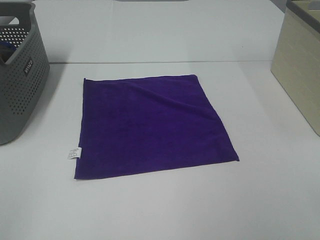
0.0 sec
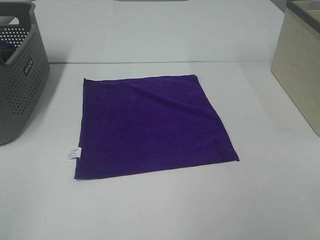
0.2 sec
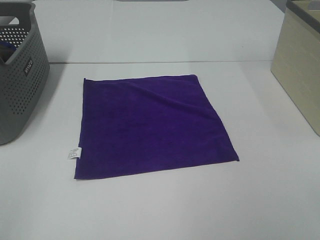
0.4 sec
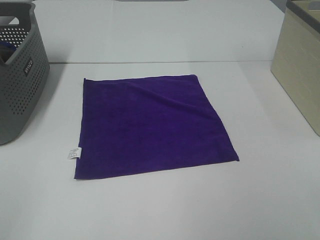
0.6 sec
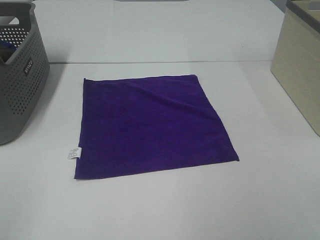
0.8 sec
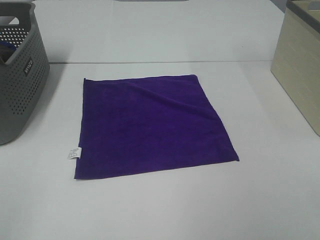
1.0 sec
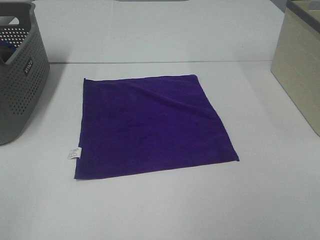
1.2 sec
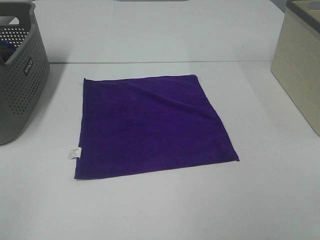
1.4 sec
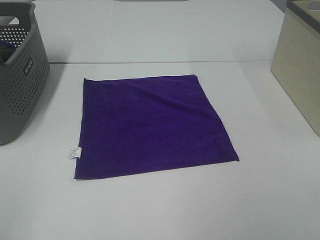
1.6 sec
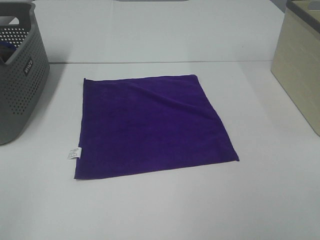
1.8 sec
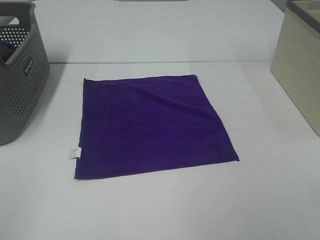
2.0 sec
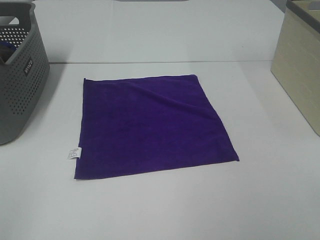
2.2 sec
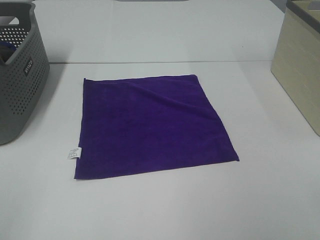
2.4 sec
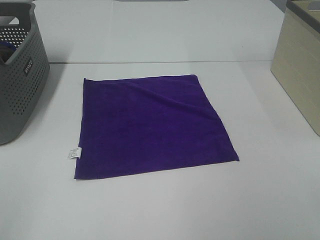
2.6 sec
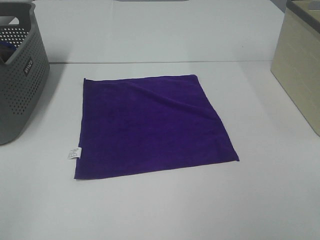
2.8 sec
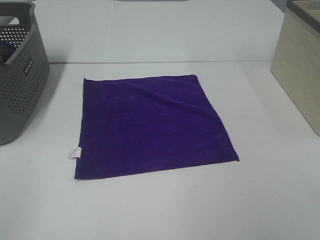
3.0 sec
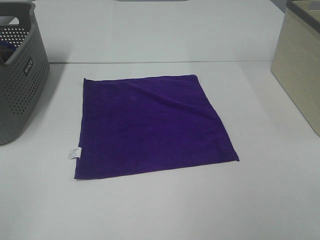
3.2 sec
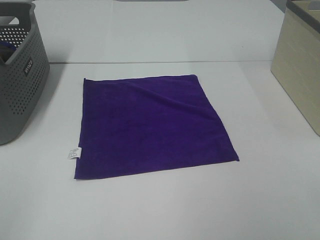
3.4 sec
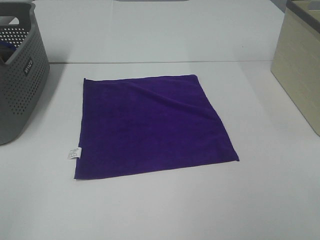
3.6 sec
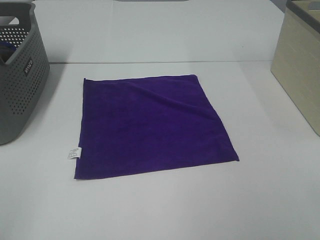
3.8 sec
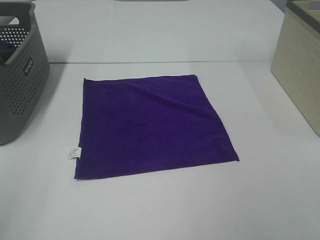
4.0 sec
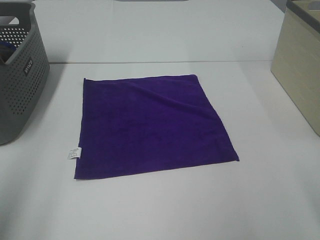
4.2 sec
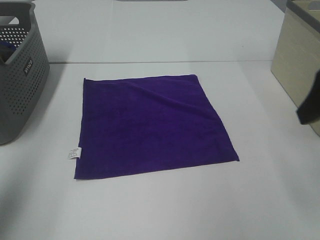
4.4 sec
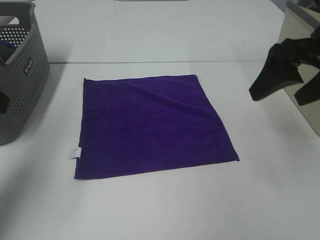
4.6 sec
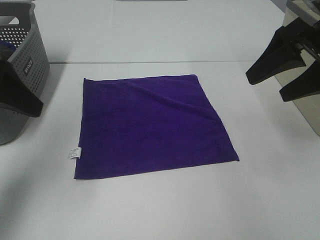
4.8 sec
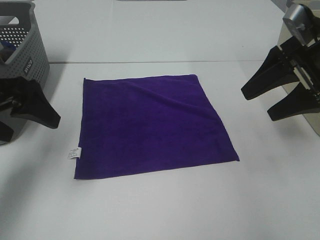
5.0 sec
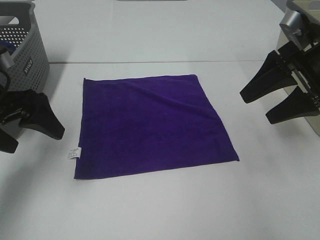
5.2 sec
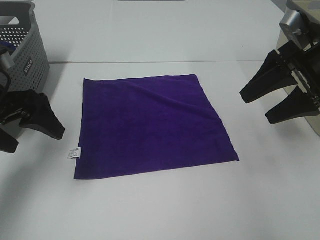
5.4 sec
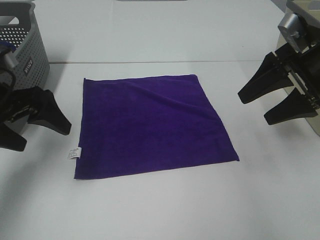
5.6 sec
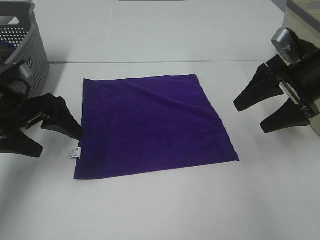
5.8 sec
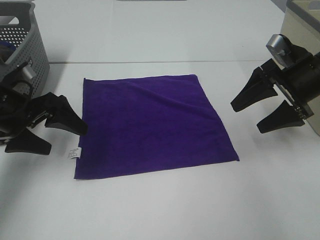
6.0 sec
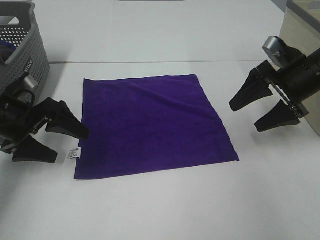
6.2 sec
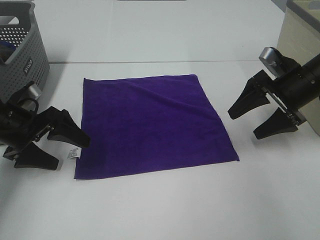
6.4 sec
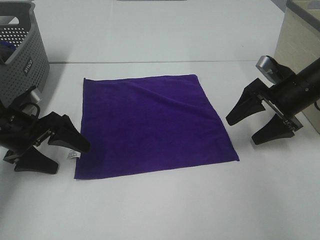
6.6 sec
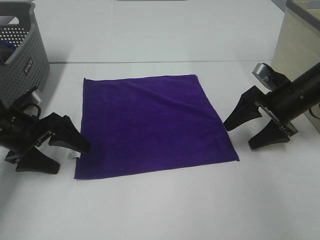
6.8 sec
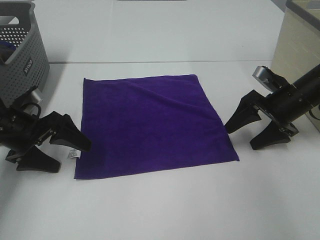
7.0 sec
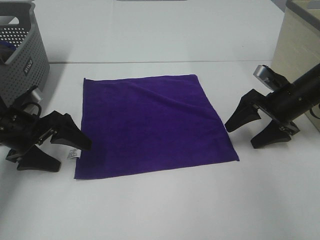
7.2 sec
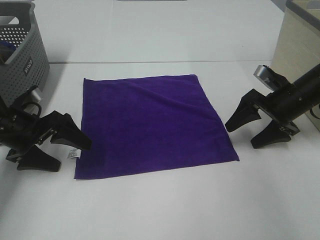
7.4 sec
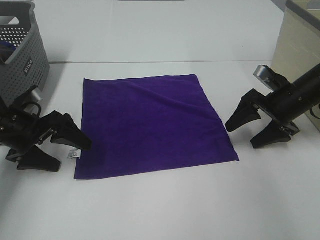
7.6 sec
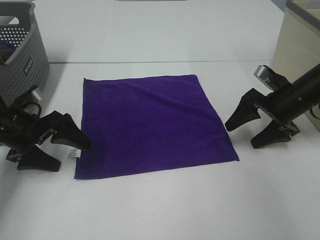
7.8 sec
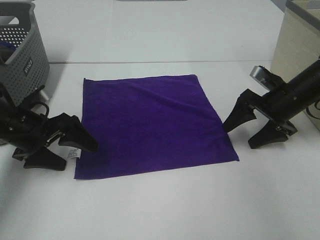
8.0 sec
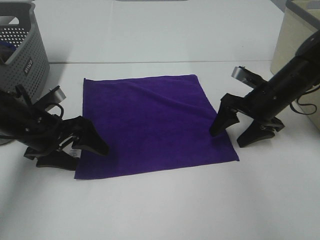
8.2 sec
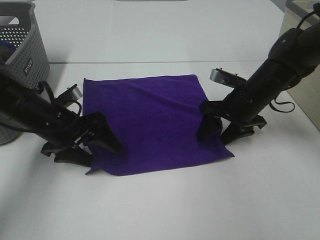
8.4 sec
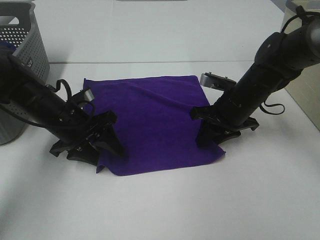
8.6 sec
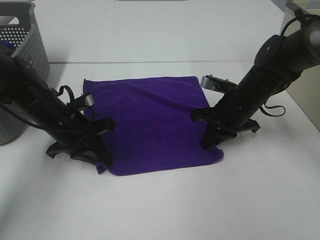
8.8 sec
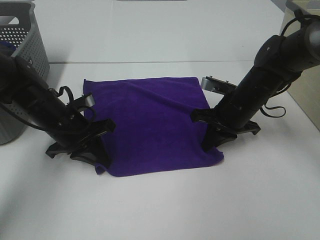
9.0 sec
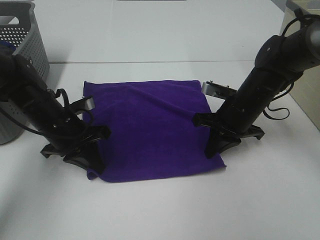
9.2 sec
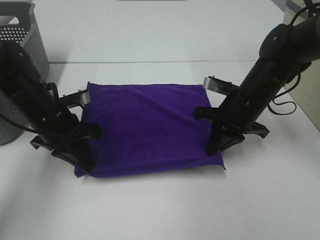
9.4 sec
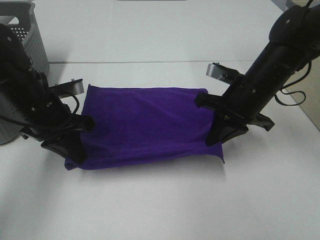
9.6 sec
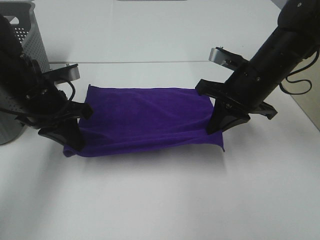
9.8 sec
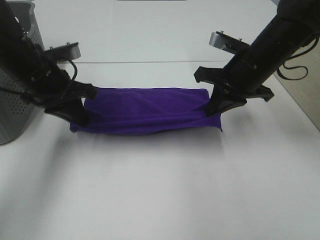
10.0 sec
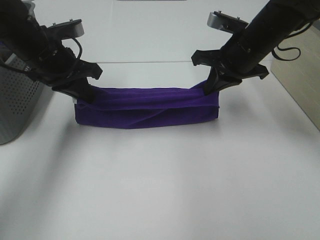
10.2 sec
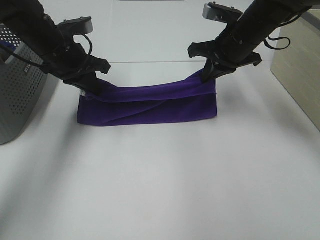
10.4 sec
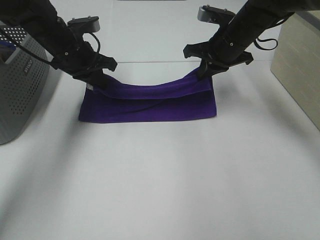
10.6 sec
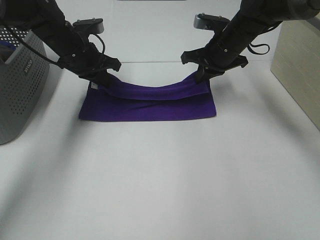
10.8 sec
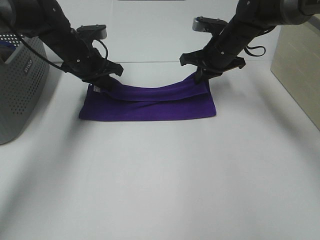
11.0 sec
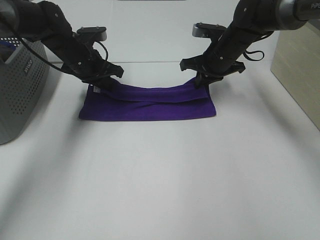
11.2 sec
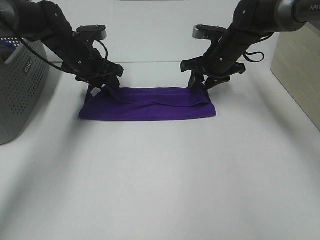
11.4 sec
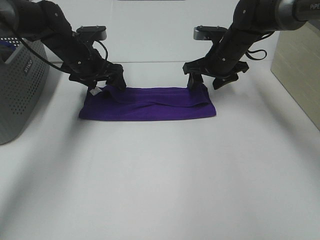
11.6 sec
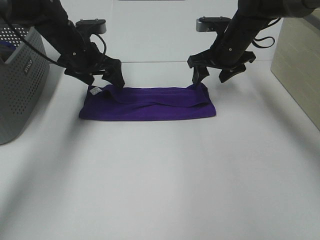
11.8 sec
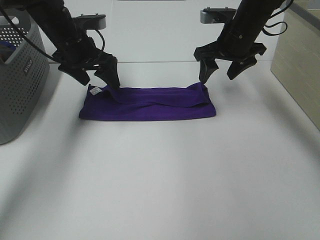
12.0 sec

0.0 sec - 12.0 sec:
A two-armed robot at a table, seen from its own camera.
Task of the whole recording: Fold towels.
Step, 0.0 sec - 8.6 sec: Left hand: grab the bottom left corner of purple towel.
Step, 0.0 sec - 8.6 sec: Right hand: grab the bottom right corner of purple towel.
Step, 8.8 sec - 11.0 sec: Left hand: fold the purple towel up.
Step, 8.8 sec - 11.0 sec: Right hand: fold the purple towel up.
0.0 sec - 3.0 sec: The two grippers keep their place.
3.0 sec - 4.4 sec: The two grippers go some 20 cm forward.
4.4 sec - 6.0 sec: The left gripper is displaced downward and forward by approximately 20 cm. The right gripper shifts some 20 cm forward and downward.
6.0 sec - 7.6 sec: Both grippers travel together downward, about 5 cm.
7.6 sec - 9.0 sec: The right gripper is displaced to the left by about 10 cm, and closes its fingers, while the left gripper goes approximately 10 cm to the right, and closes.
9.0 sec - 10.4 sec: Both grippers move upward and forward, about 15 cm.
10.4 sec - 12.0 sec: The right gripper opens. The left gripper opens.

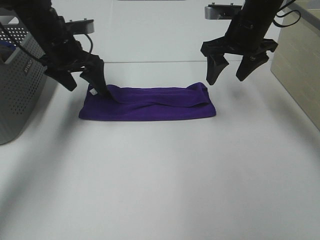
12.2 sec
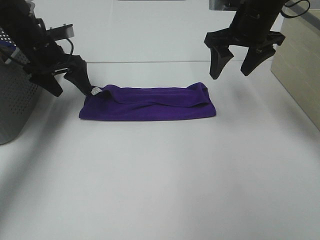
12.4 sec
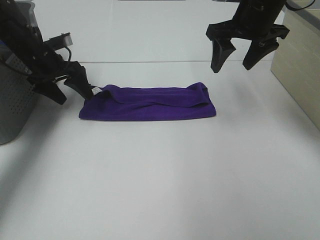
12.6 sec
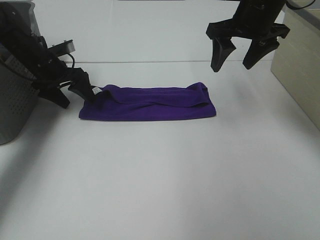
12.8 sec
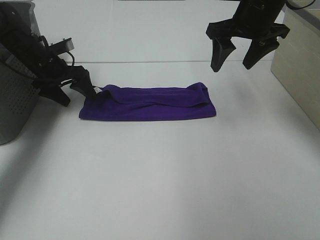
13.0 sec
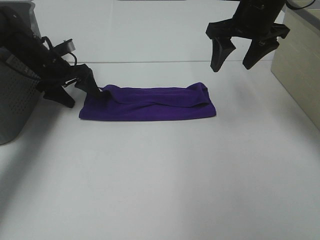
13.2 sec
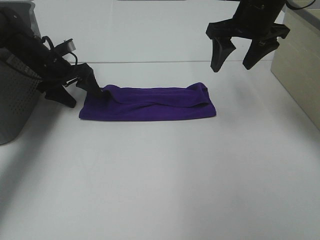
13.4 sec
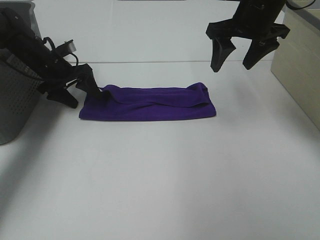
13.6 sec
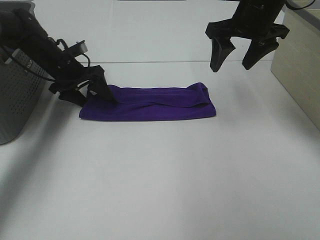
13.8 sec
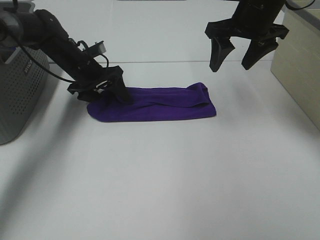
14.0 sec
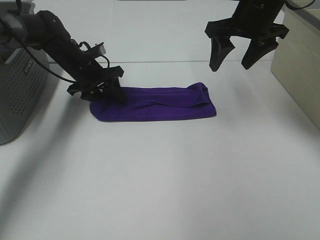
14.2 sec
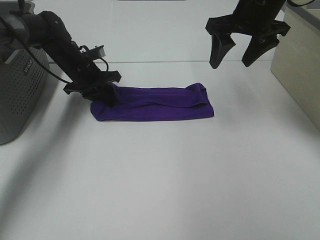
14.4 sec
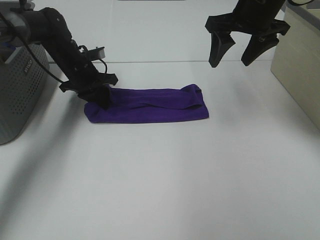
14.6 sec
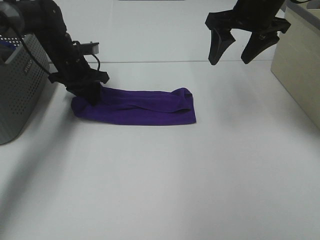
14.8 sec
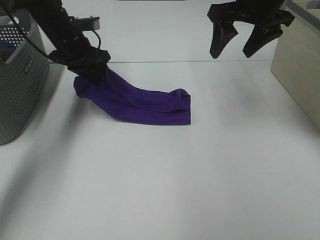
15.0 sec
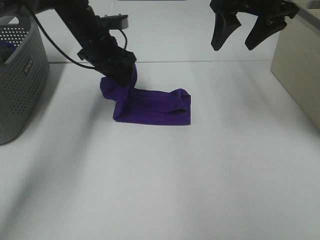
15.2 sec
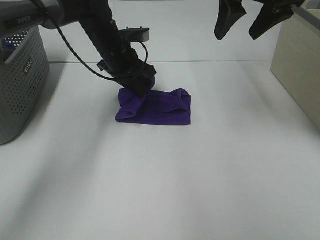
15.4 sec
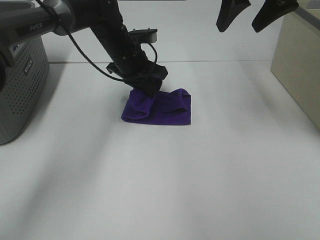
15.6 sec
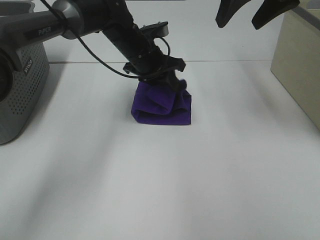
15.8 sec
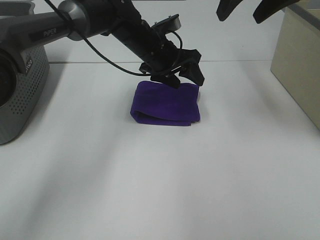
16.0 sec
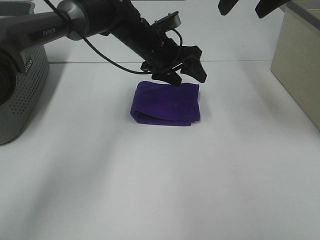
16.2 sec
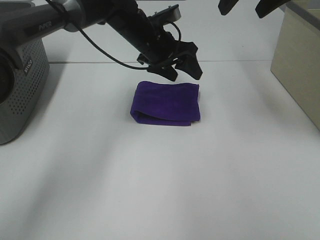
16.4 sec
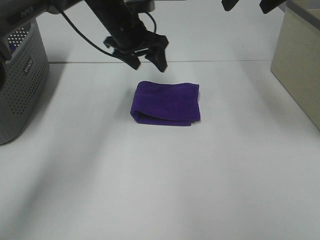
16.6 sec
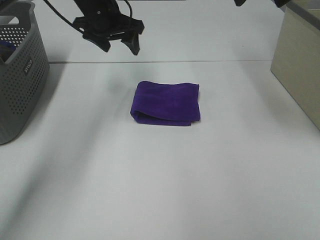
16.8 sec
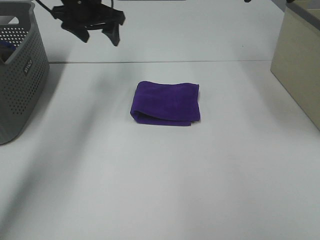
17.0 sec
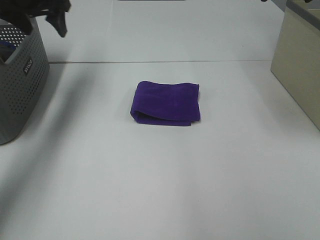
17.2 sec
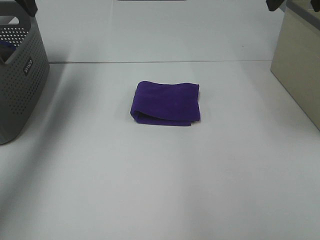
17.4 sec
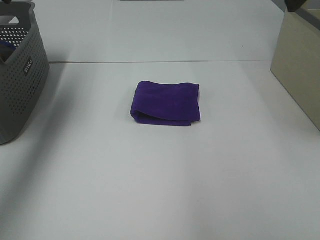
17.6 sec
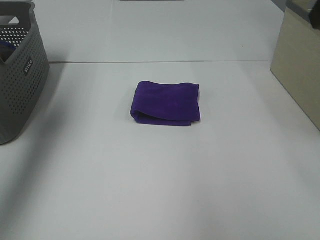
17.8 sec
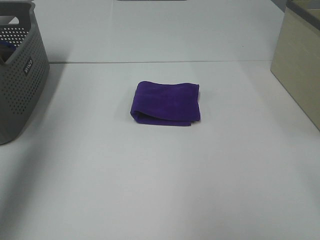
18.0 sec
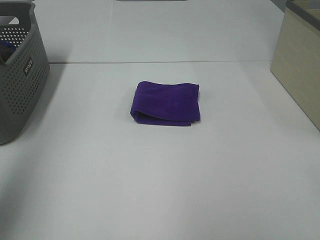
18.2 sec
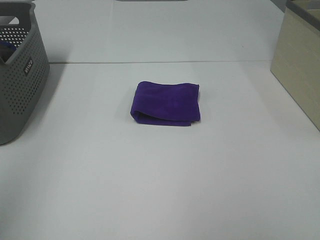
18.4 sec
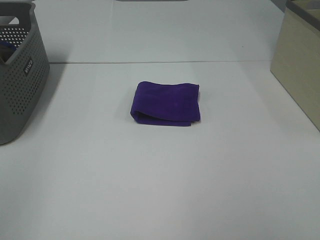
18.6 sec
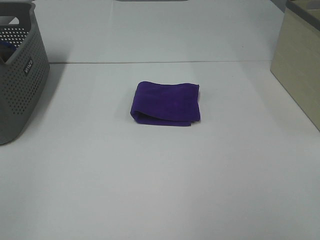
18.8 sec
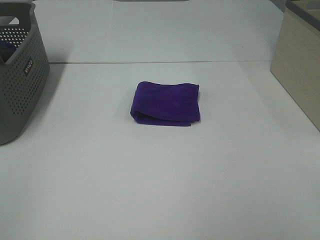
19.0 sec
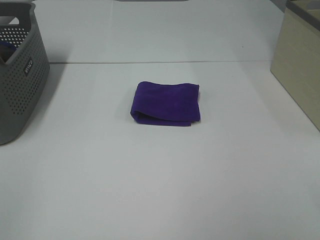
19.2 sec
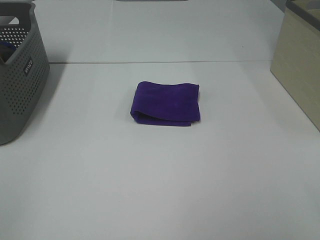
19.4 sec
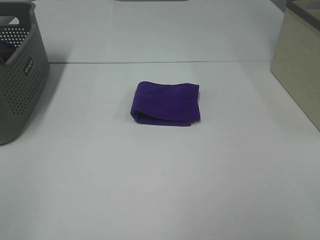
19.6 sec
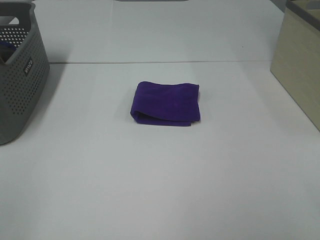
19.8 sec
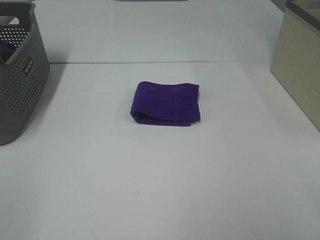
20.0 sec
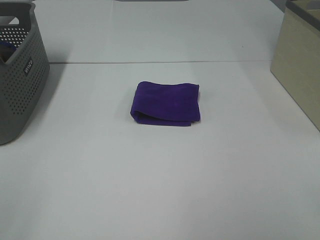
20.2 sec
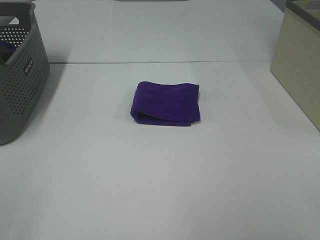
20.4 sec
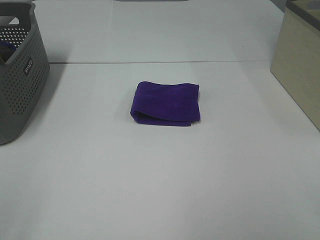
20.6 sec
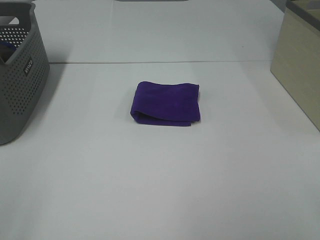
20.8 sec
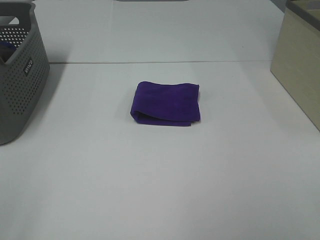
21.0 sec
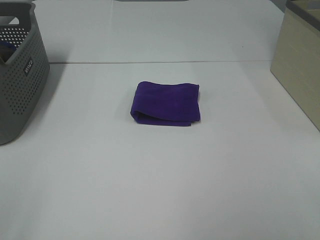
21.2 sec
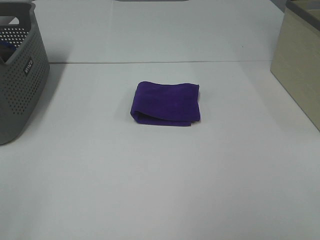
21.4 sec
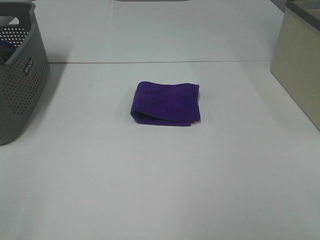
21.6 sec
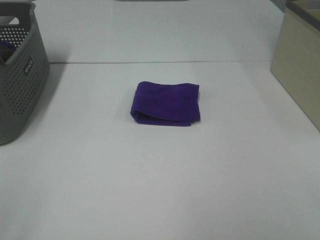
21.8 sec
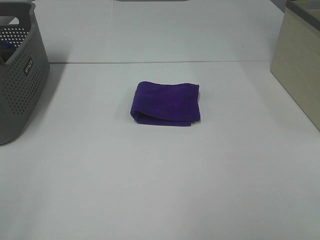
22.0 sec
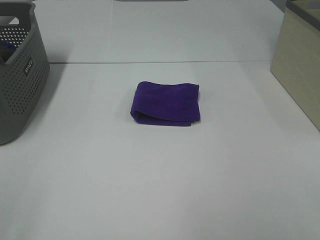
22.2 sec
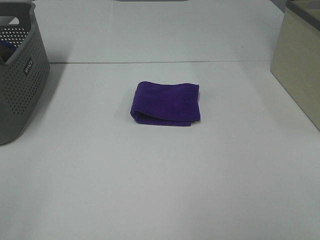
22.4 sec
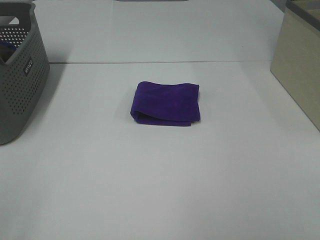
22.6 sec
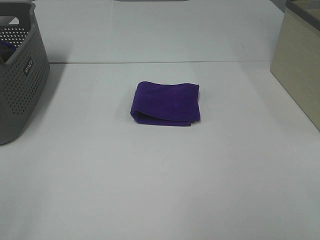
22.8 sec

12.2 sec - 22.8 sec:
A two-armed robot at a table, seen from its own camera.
Task of the whole recording: Fold towels.
Step, 12.2 sec - 15.8 sec: Left hand: fold the purple towel from left to right.
12.2 sec - 13.8 sec: The left gripper goes about 10 cm downward.
13.8 sec - 15.2 sec: The right gripper moves roughly 5 cm, while the left gripper goes roughly 10 cm to the right and upward, and closes up.
15.2 sec - 16.8 sec: Both grippers move upward, about 5 cm. The left gripper moves roughly 10 cm to the right and comes back, and opens its fingers.
16.8 sec - 18.2 sec: The left gripper shifts roughly 40 cm backward, to the left and upward. Meanwhile the right gripper heads backward, covering some 25 cm.
18.2 sec - 19.8 sec: The left gripper moves backward and downward, some 20 cm.
21.2 sec - 22.8 sec: Both grippers stay about where they are.
